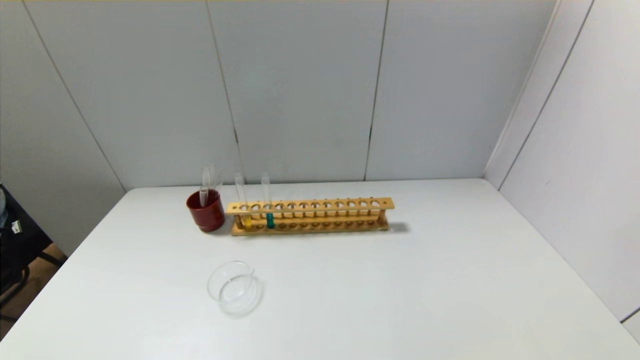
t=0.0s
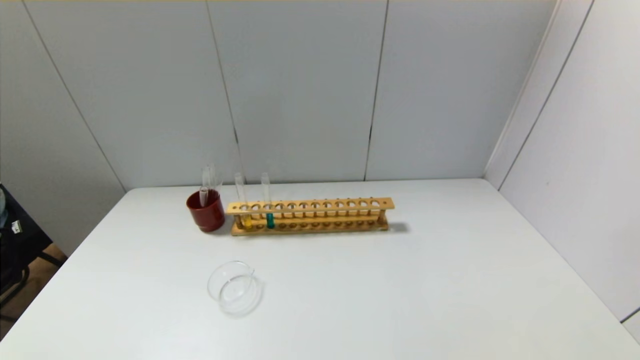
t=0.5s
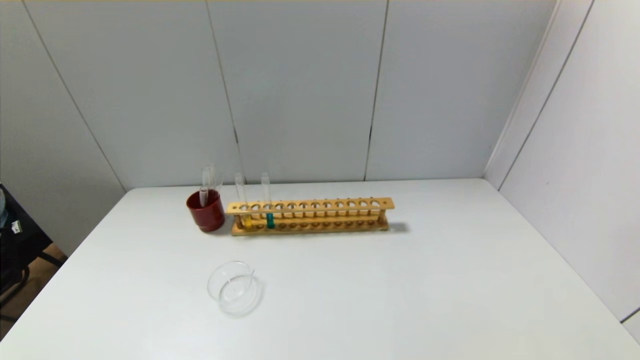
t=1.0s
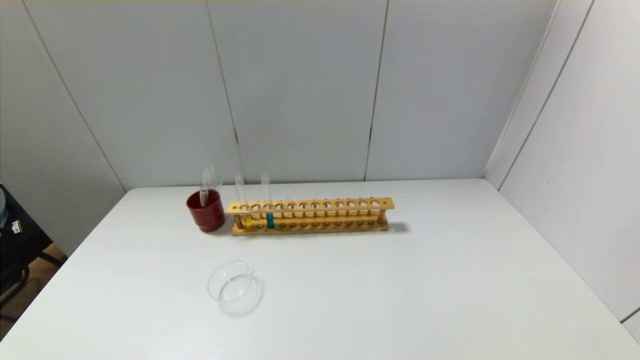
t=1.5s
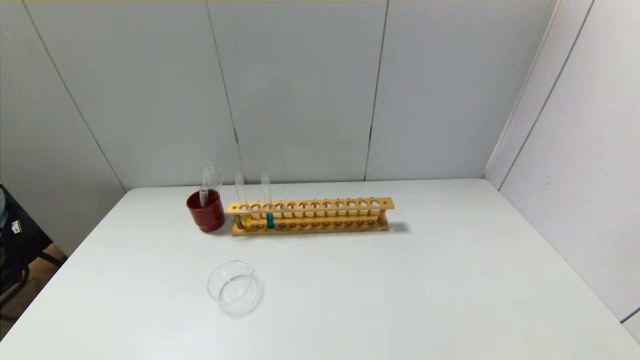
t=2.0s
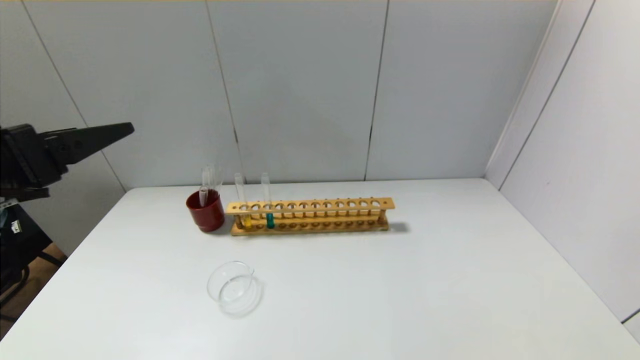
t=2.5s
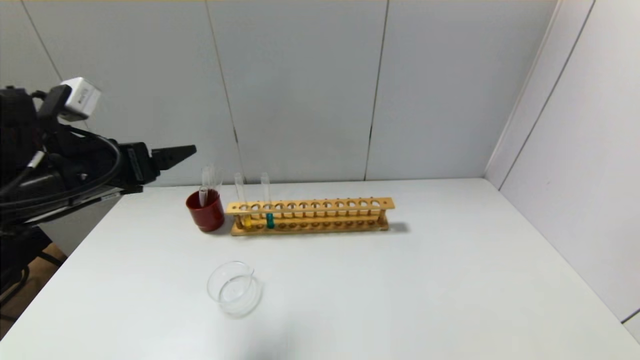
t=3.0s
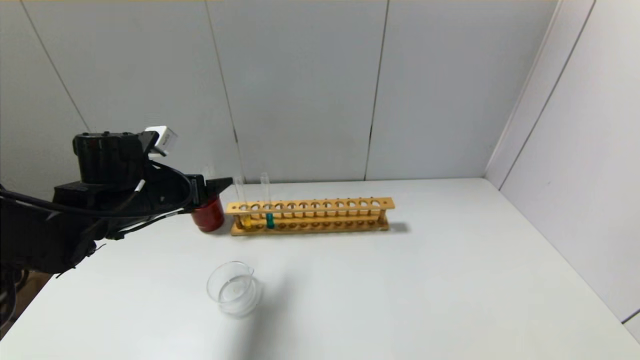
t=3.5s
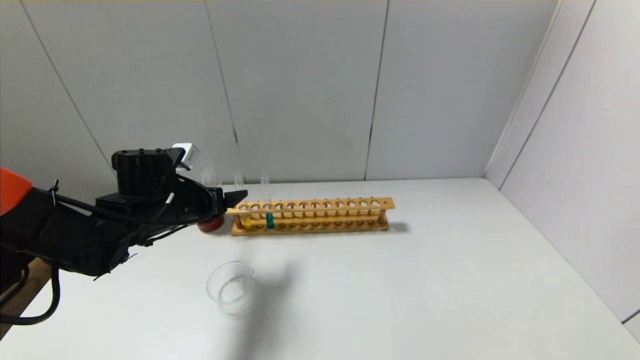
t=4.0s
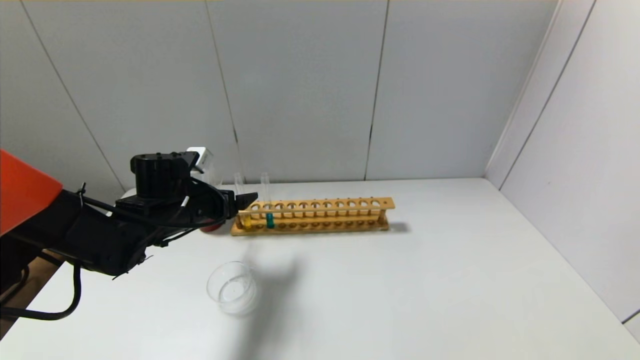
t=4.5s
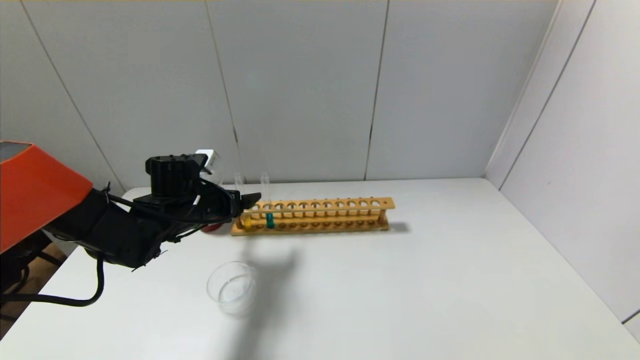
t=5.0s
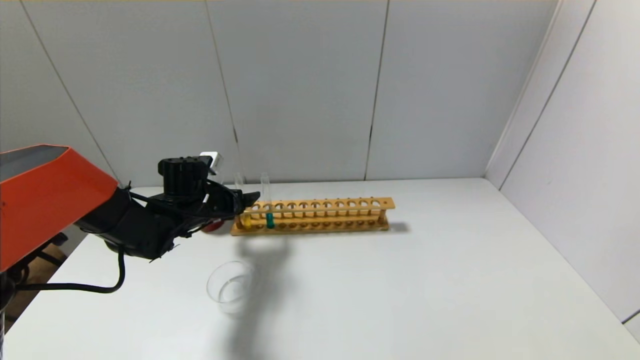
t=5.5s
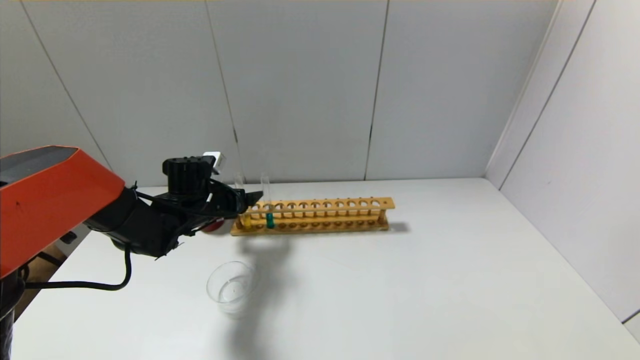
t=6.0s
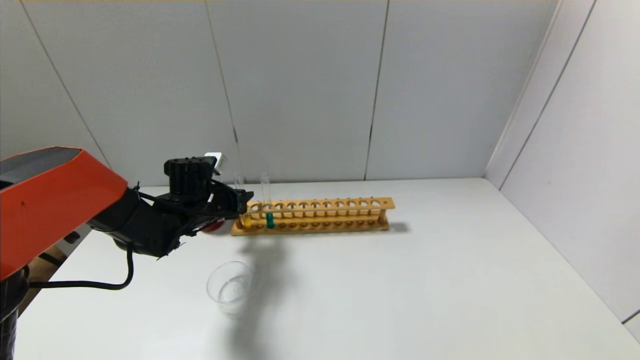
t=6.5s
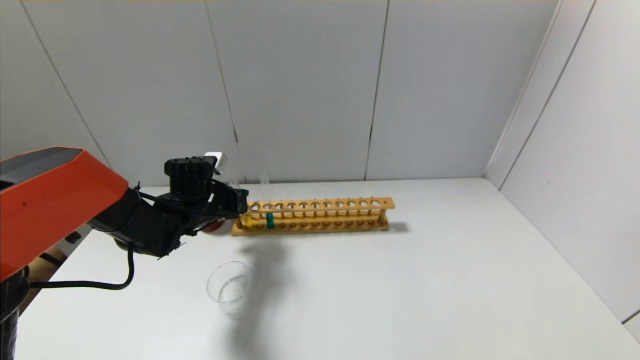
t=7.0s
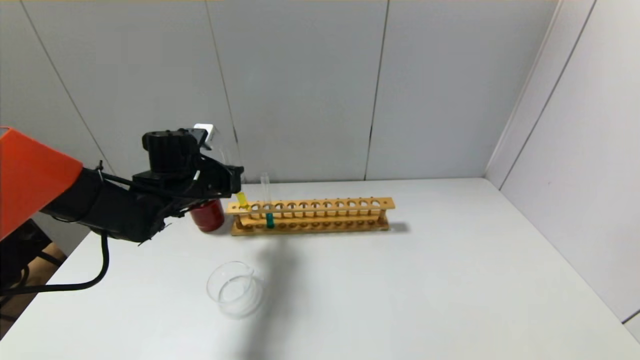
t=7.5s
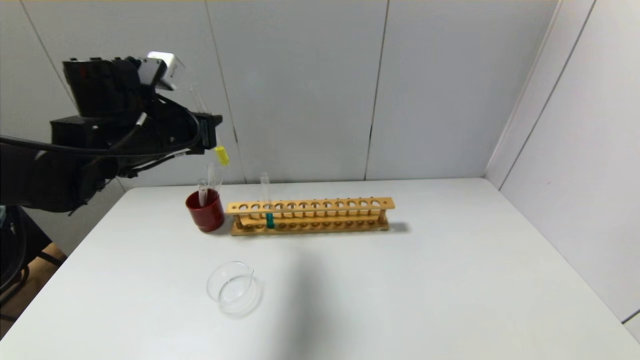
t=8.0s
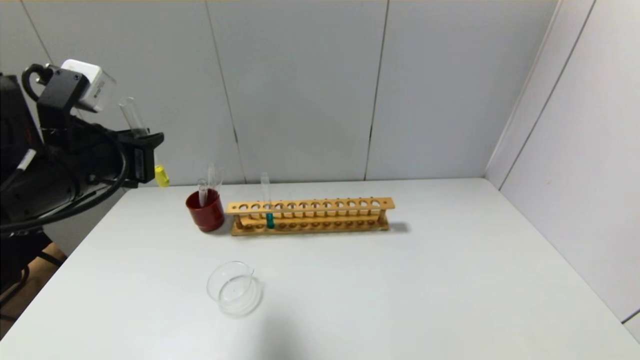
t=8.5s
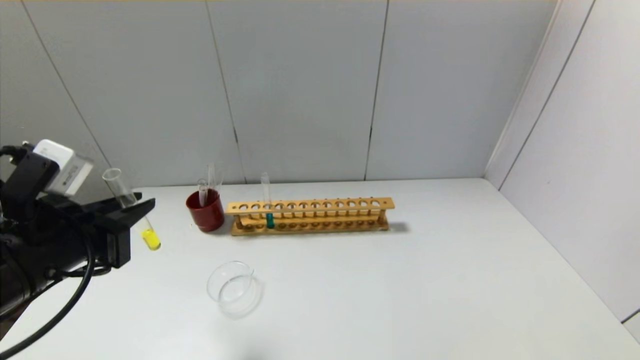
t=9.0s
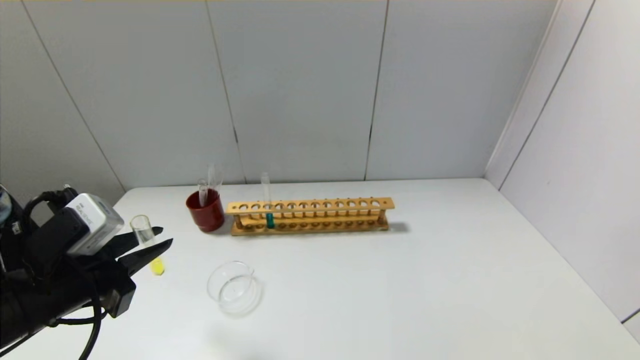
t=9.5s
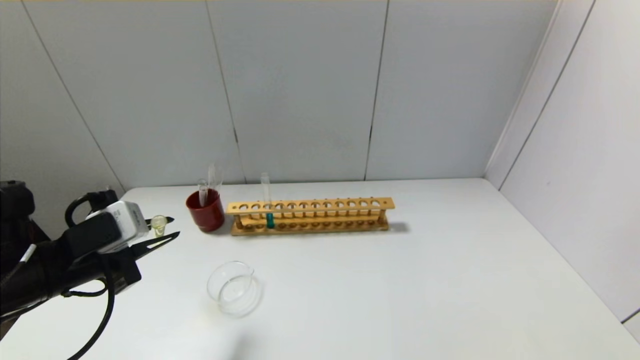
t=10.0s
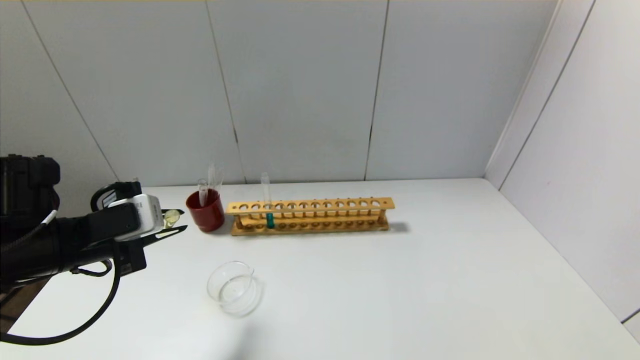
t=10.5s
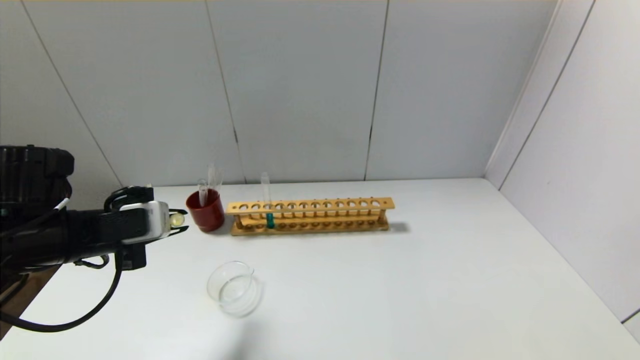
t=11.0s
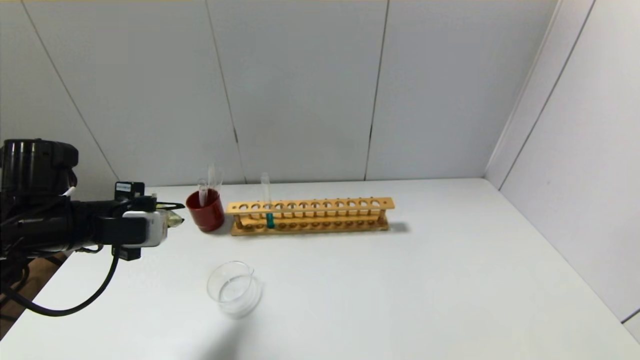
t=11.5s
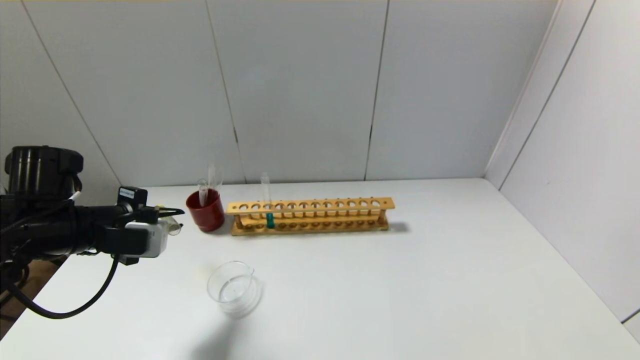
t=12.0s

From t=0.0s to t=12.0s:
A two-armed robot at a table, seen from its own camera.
Step, from t=0.0s to t=6.5s: Grasp the yellow reagent with the left gripper.
From t=2.0s to t=4.0s: The left gripper moves forward and downward, about 35 cm.
From t=4.0s to t=6.0s: The left gripper shifts some 5 cm forward.
From t=6.0s to t=8.0s: The left gripper is displaced upward and backward by some 20 cm, and closes its fingers.
From t=8.0s to t=10.0s: The left gripper travels backward, downward and to the left by roughly 15 cm.
From t=10.0s to t=12.0s: The left gripper is displaced forward by roughly 5 cm.

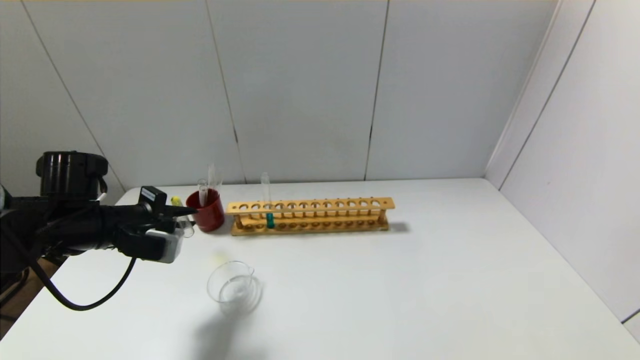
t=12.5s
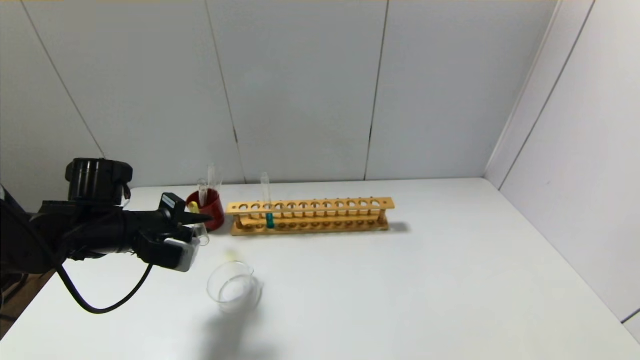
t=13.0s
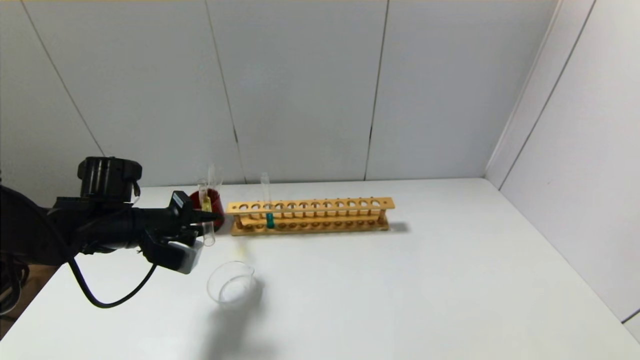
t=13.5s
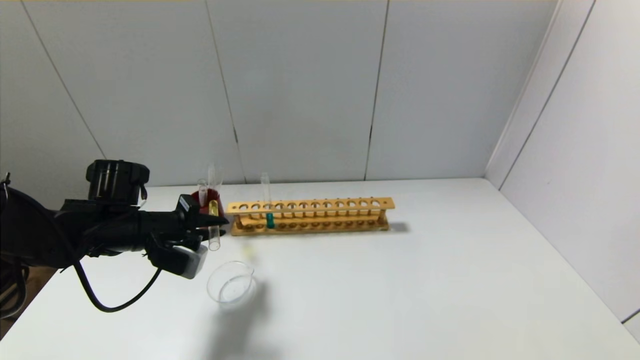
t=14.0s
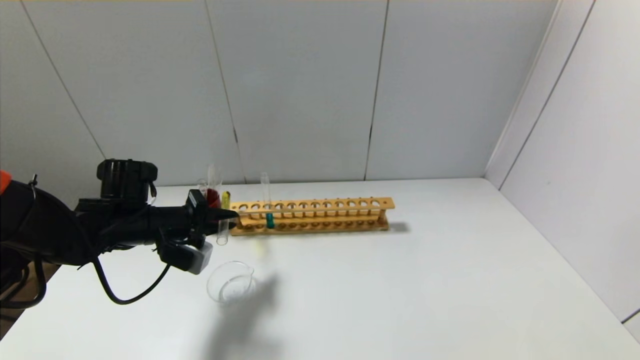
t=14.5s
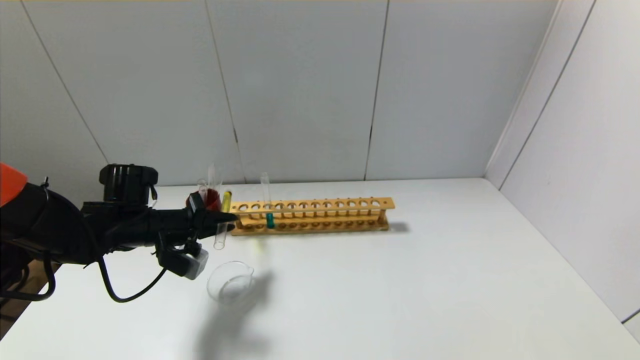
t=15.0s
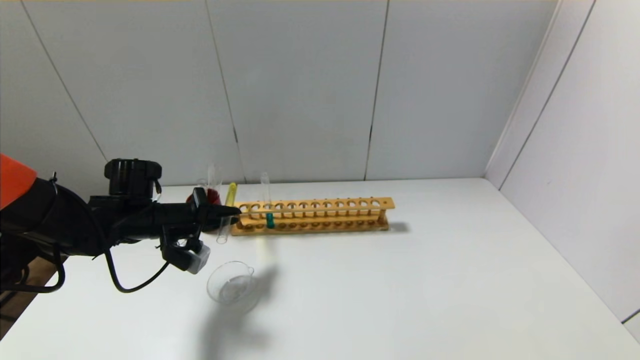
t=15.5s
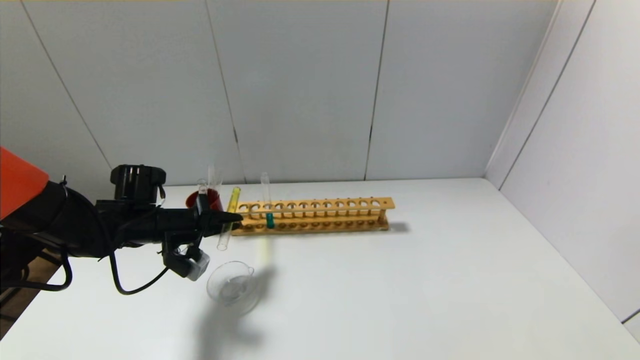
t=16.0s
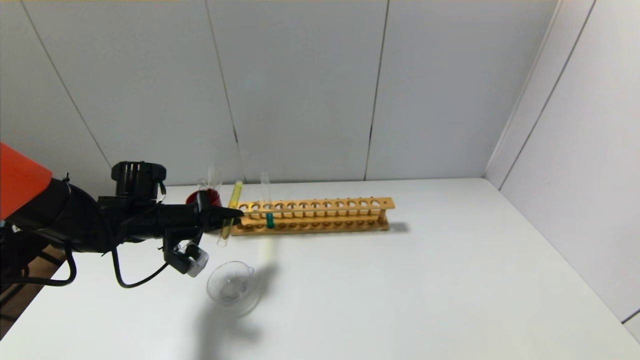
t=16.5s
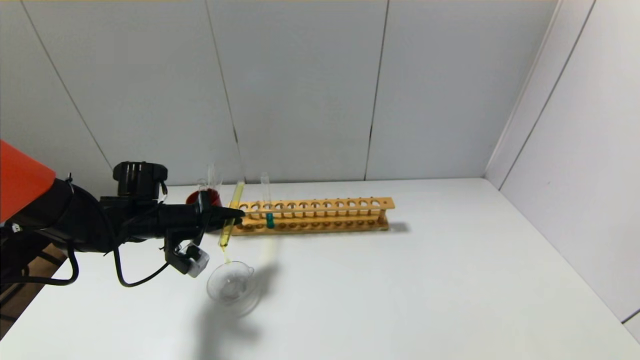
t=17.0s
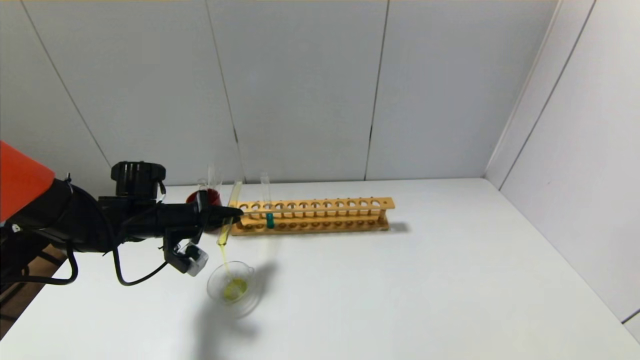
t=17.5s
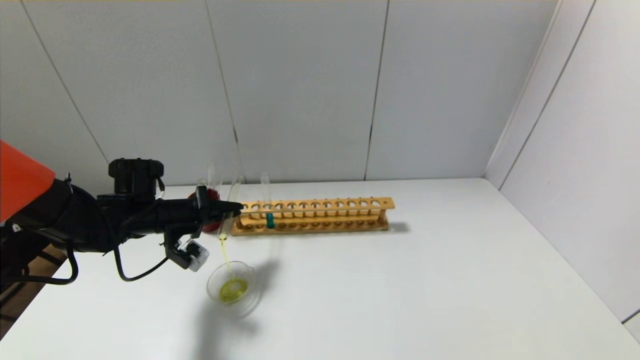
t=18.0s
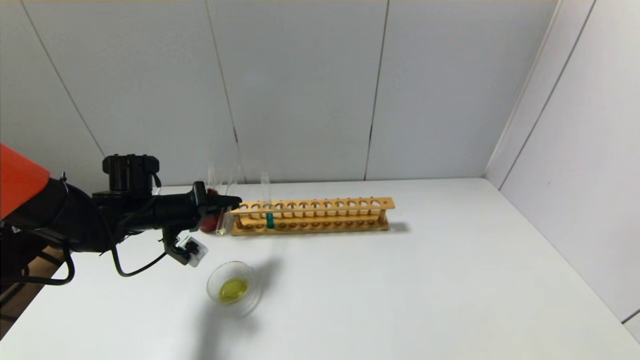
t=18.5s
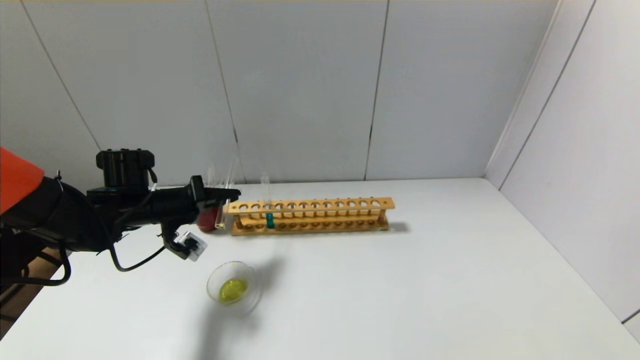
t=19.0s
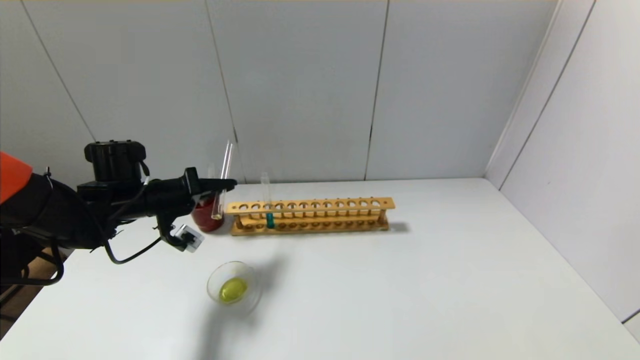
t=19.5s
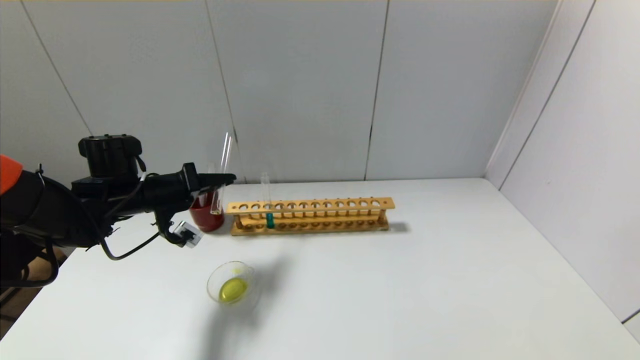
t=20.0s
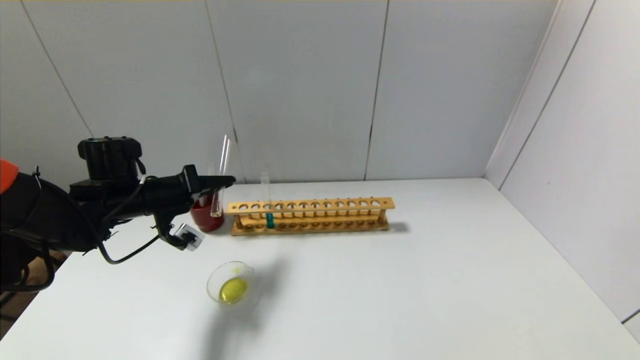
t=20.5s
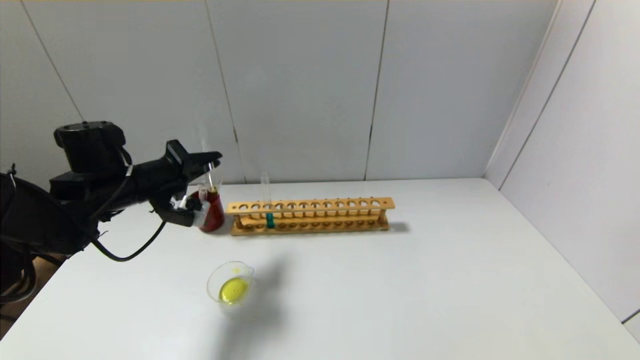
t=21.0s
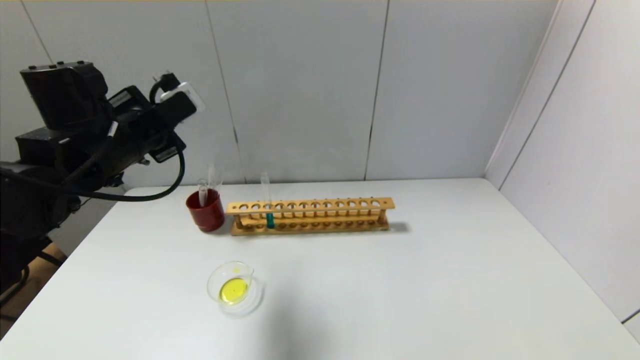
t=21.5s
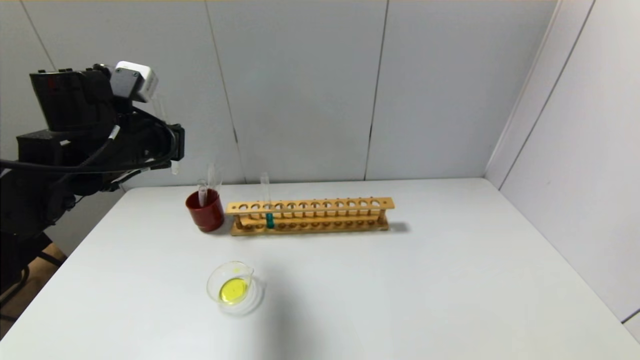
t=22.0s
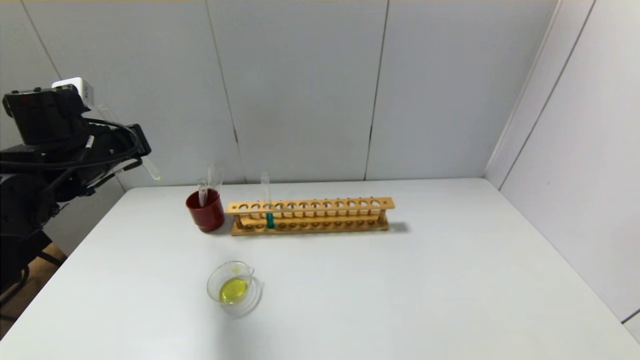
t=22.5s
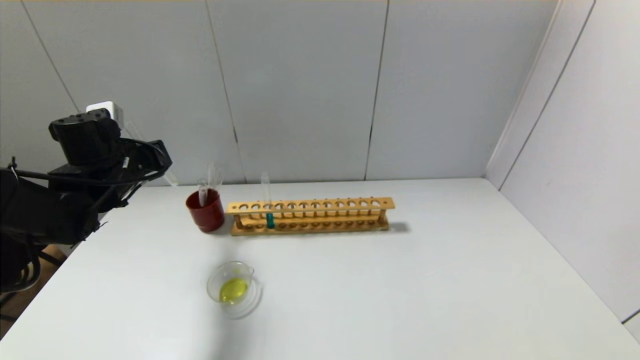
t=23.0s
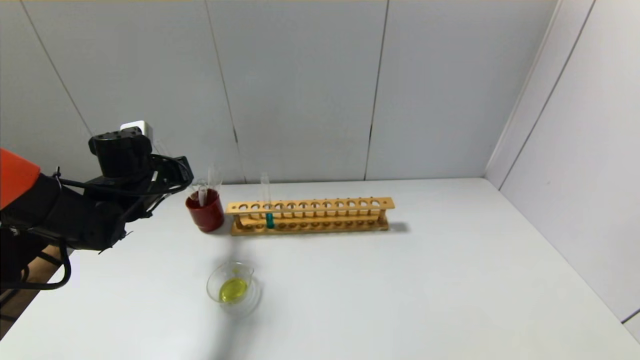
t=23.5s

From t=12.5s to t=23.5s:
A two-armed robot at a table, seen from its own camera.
Step, from t=12.5s to t=21.0s: Pour the yellow reagent into the graduated cylinder with the left gripper.
From t=12.5s to t=14.5s: The left gripper changes place by some 5 cm.
From t=14.5s to t=16.0s: The grippers move only a little.
From t=16.0s to t=18.0s: The grippers move only a little.
From t=20.0s to t=21.5s: The left gripper moves upward, approximately 10 cm.
From t=21.5s to t=23.5s: The left gripper heads downward and forward, covering approximately 10 cm.
